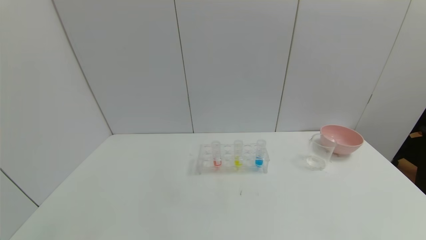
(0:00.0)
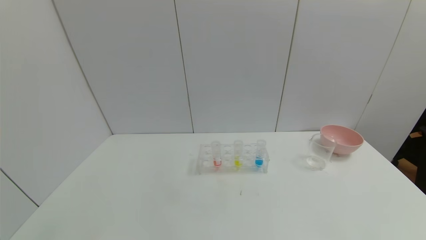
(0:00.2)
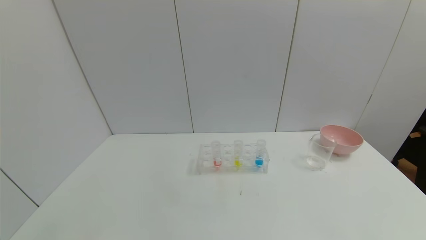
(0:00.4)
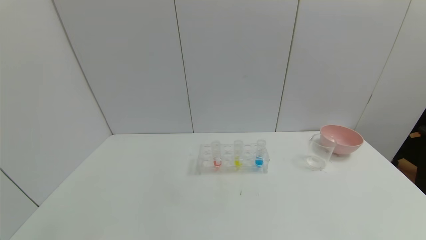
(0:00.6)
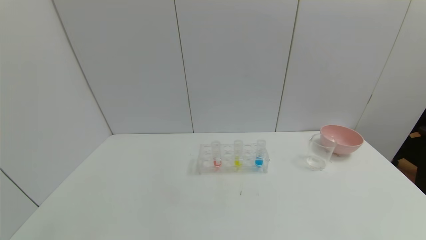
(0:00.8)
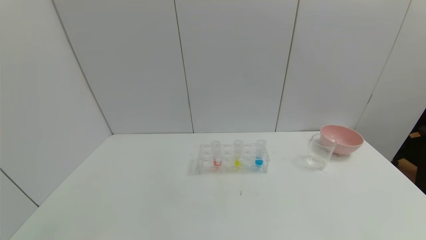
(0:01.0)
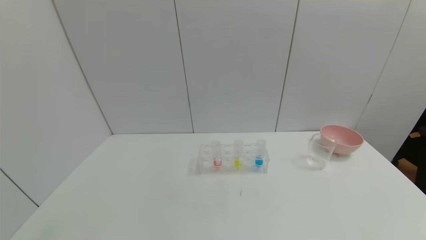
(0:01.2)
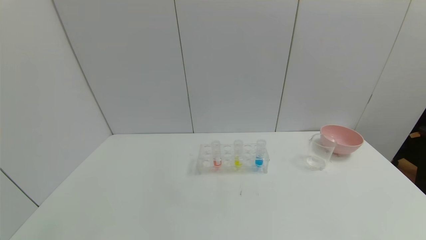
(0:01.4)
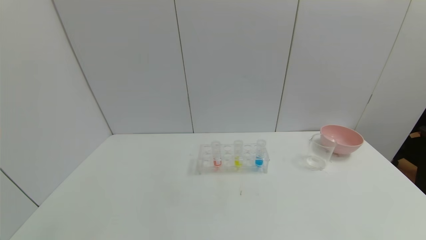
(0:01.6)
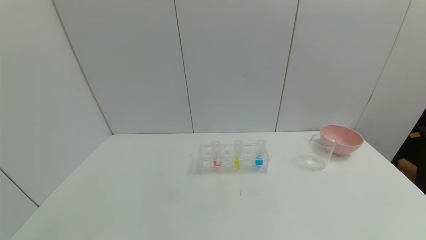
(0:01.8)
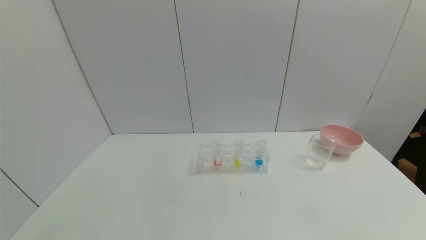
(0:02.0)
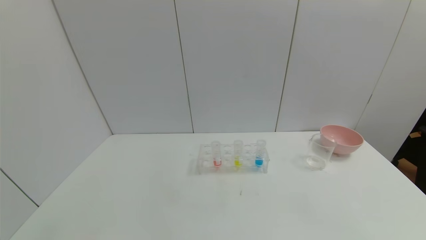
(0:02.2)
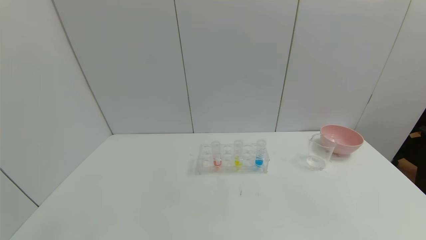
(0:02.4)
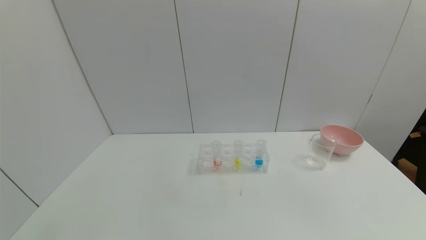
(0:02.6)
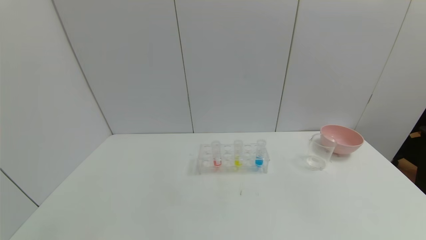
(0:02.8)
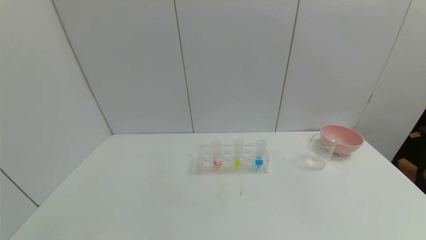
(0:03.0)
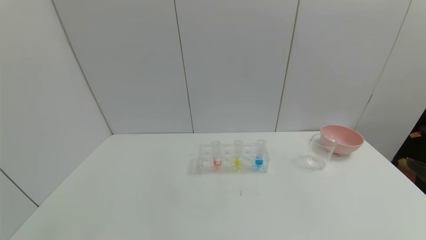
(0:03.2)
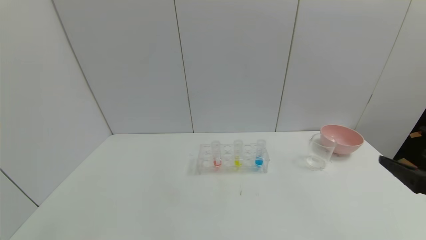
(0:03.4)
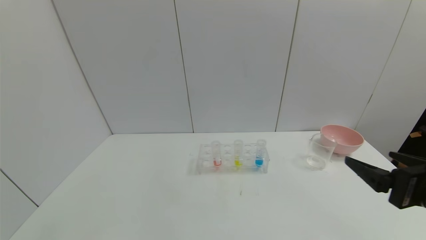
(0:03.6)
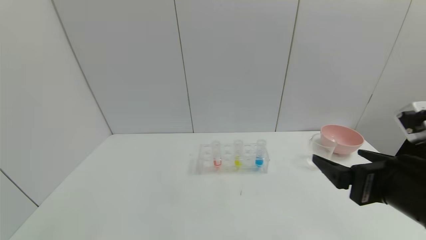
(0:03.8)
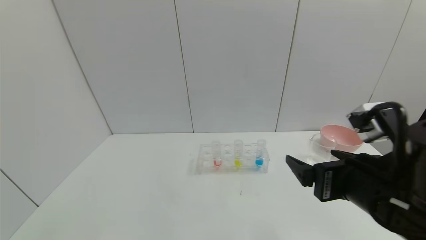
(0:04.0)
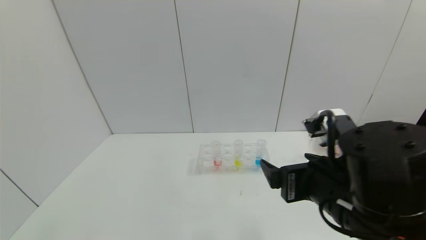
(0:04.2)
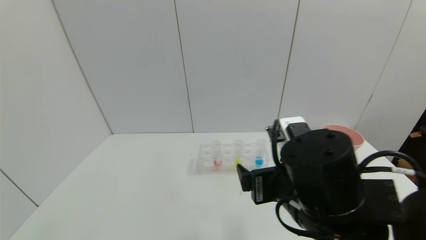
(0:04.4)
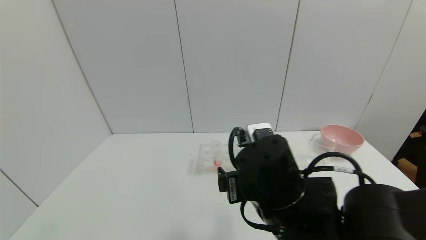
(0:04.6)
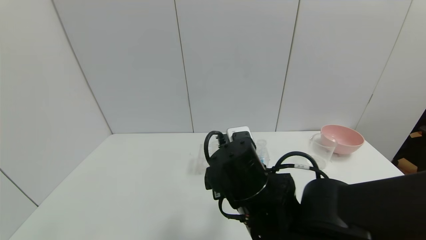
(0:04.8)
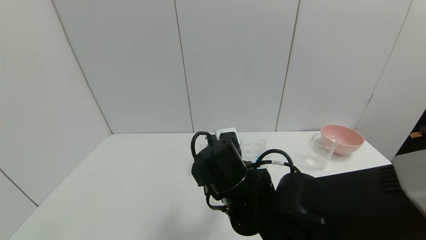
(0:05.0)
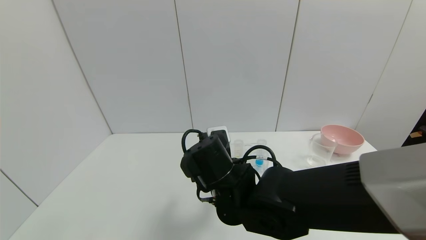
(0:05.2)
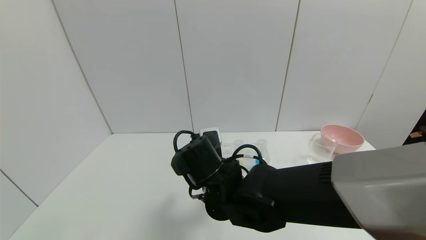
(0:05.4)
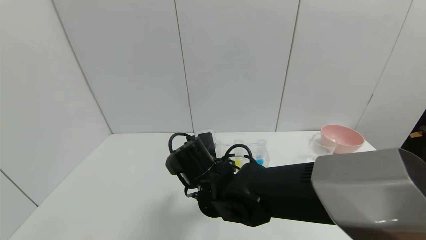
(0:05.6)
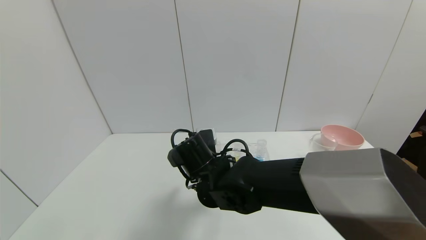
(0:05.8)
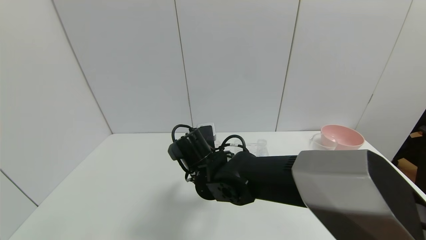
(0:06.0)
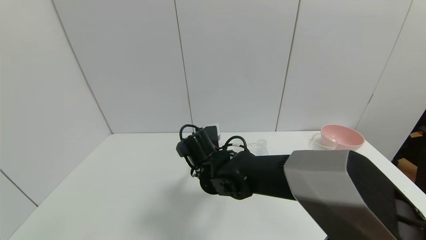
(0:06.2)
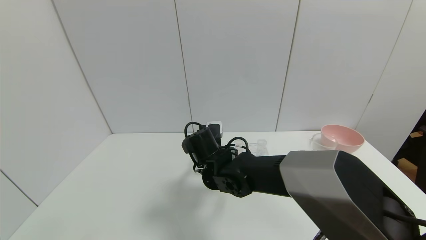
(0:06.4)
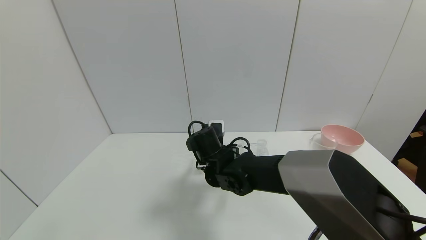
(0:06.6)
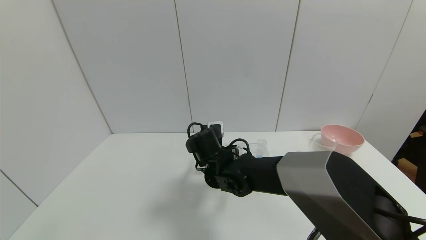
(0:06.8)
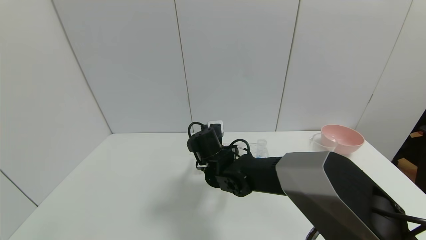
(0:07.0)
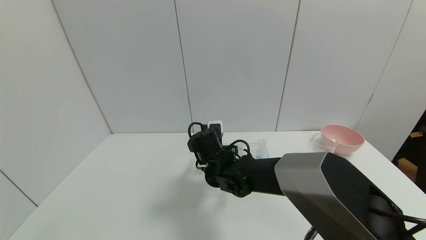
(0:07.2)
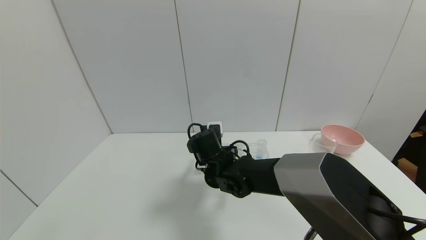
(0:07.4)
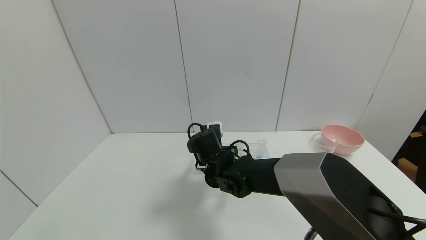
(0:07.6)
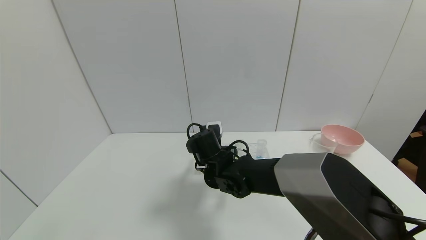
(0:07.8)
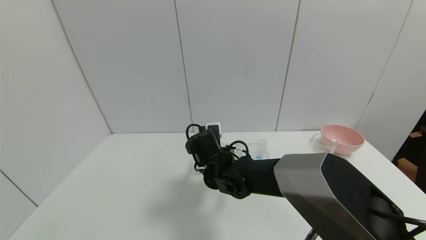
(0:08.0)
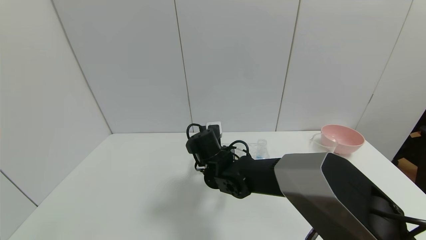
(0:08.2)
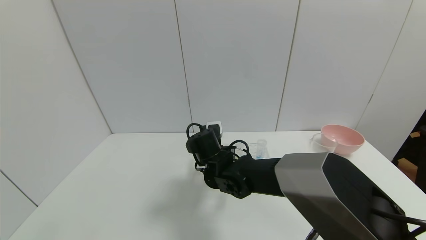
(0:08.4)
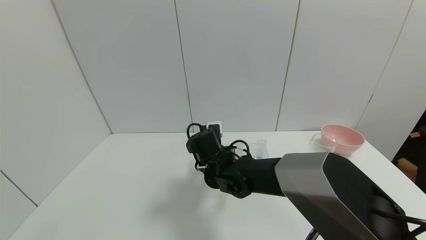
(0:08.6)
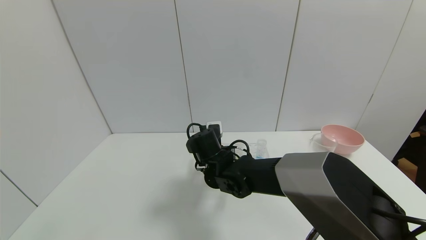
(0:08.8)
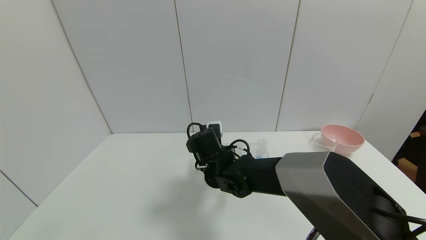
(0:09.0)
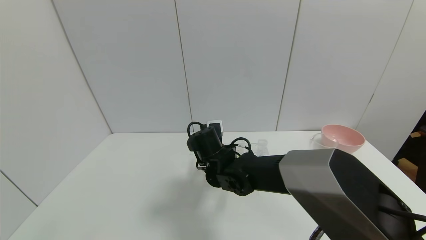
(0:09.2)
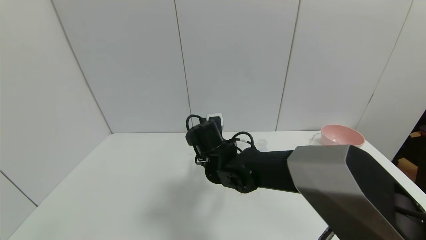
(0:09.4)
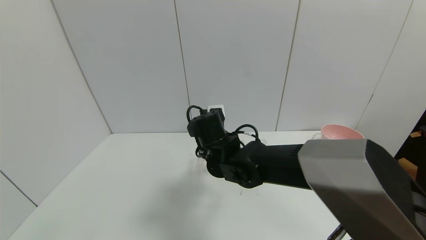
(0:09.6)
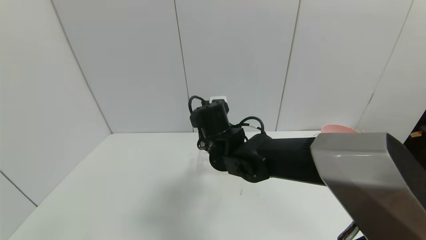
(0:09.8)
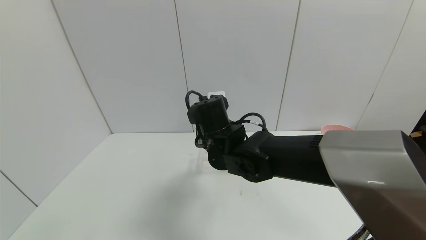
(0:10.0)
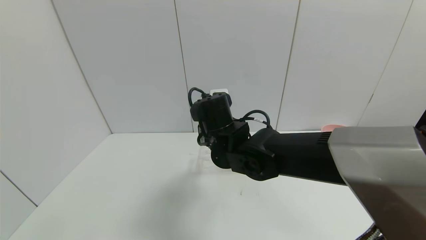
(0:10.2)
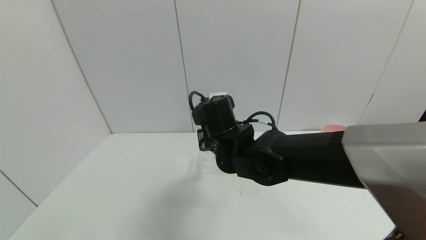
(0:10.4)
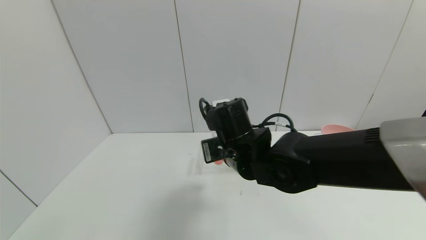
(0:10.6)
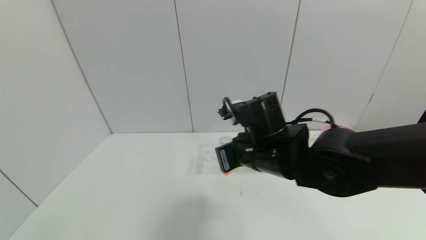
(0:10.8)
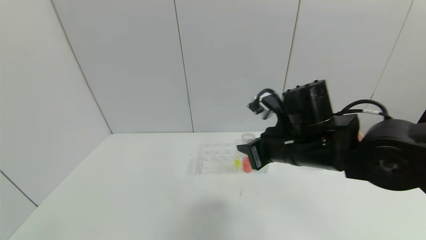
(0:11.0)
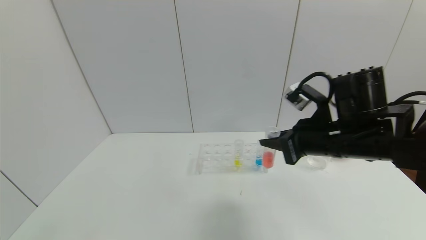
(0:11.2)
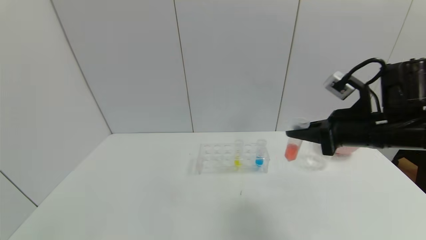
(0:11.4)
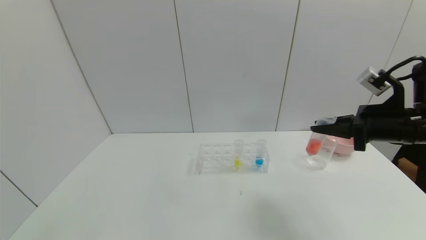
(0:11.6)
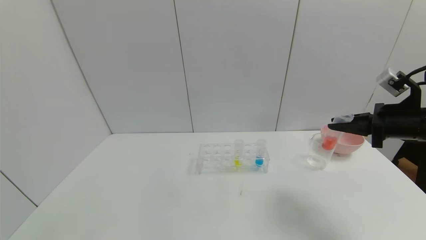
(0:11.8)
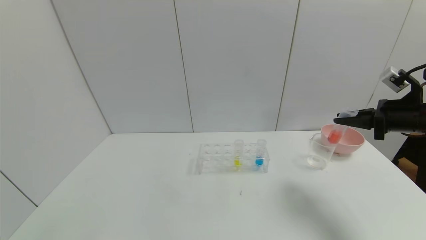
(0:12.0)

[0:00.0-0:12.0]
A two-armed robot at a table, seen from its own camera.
Task of the whole recording: pick up the test tube with yellow pigment and the test tube with red pigment by grippers and pour them into the beaker.
Step, 0:00.0 to 0:08.4: Grasp the red reagent with the right gripper.
0:00.0 to 0:01.6: The two grippers keep their place.
0:03.0 to 0:04.4: The right gripper travels to the left and forward by some 25 cm.
0:04.4 to 0:06.0: The right gripper moves to the left, forward and downward, roughly 20 cm.
0:06.0 to 0:07.6: The right gripper heads forward, covering approximately 5 cm.
0:07.6 to 0:09.0: The right gripper closes its fingers.
0:09.0 to 0:10.4: The right gripper travels upward by about 10 cm.
0:10.4 to 0:12.0: The right gripper moves to the right, approximately 40 cm.

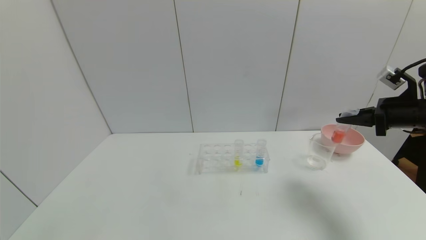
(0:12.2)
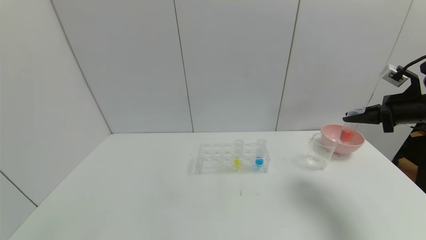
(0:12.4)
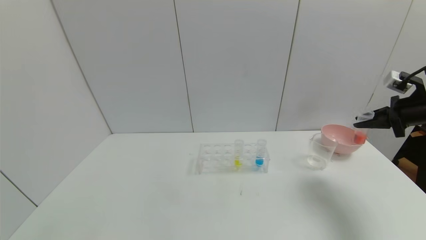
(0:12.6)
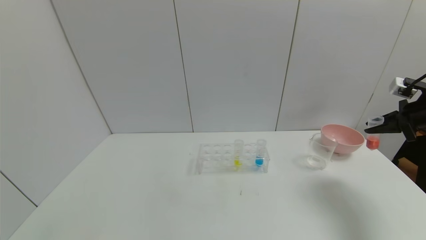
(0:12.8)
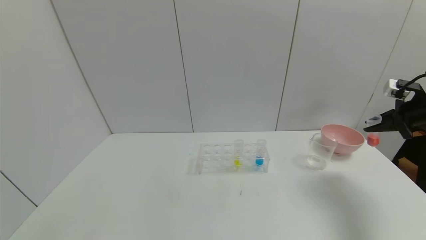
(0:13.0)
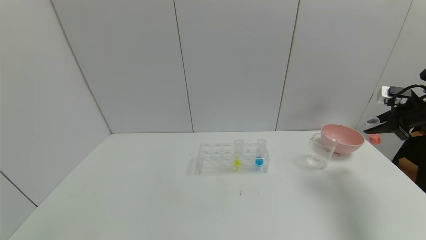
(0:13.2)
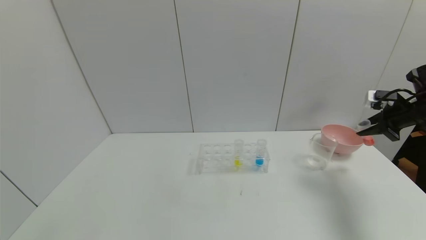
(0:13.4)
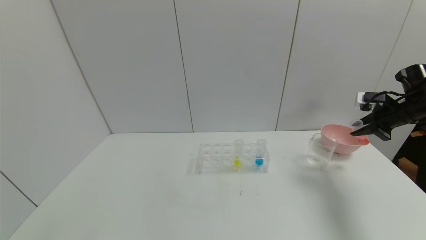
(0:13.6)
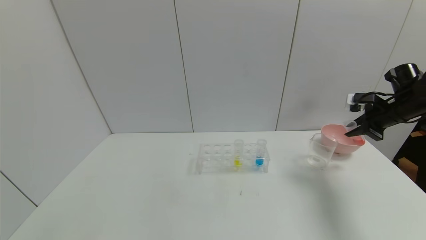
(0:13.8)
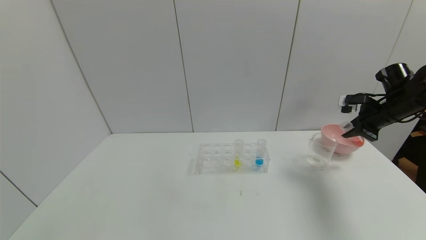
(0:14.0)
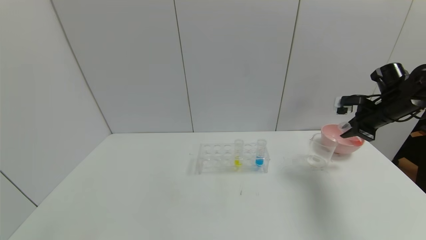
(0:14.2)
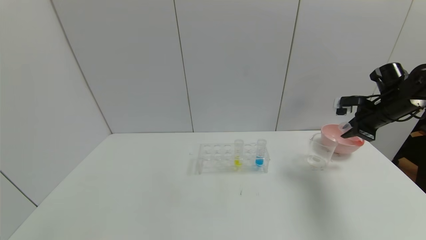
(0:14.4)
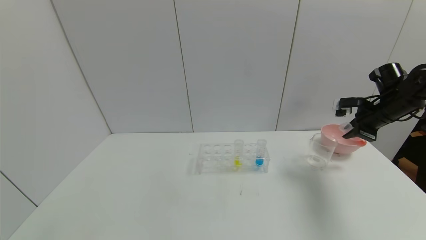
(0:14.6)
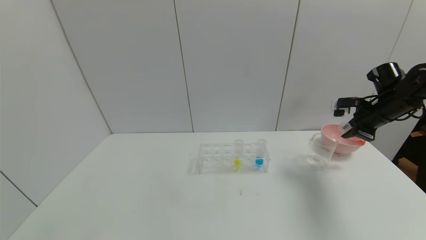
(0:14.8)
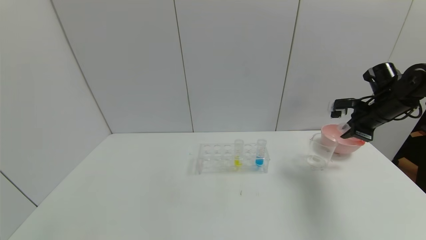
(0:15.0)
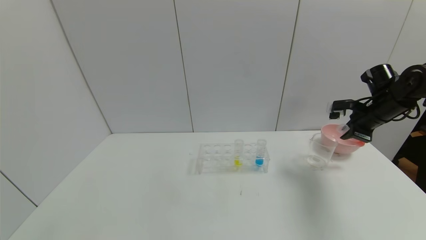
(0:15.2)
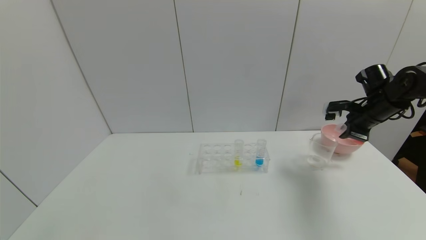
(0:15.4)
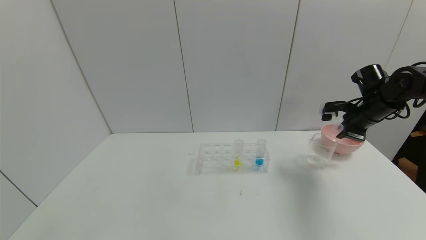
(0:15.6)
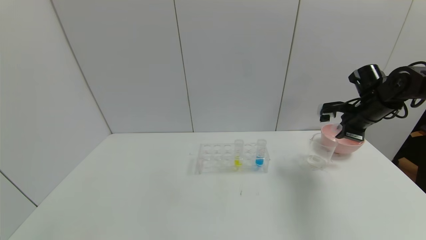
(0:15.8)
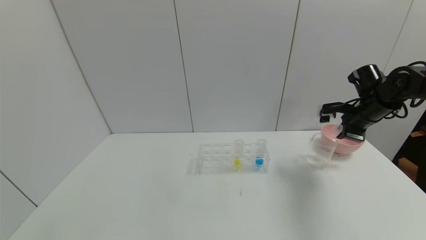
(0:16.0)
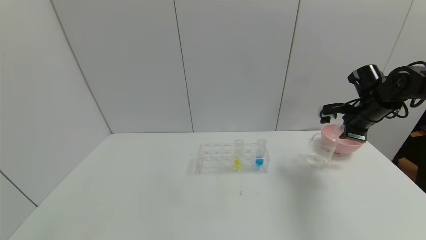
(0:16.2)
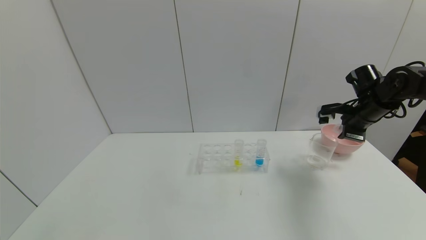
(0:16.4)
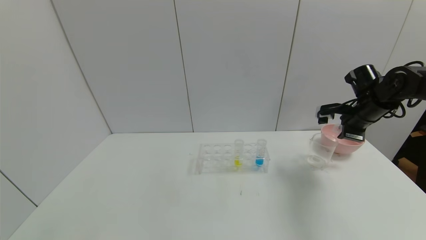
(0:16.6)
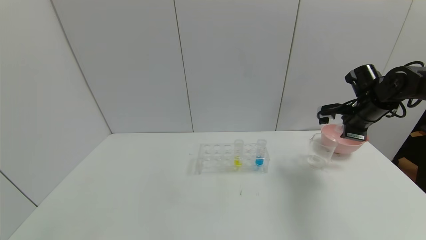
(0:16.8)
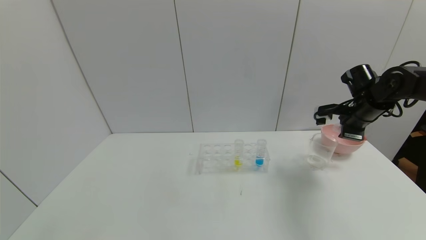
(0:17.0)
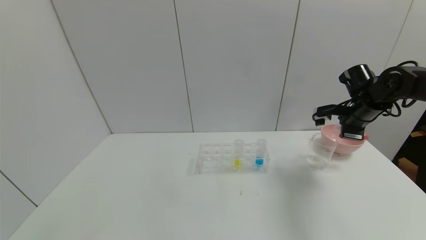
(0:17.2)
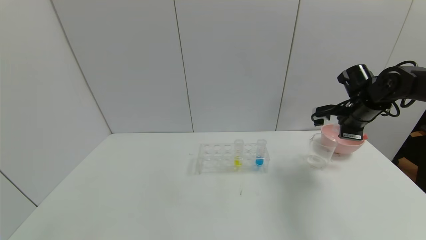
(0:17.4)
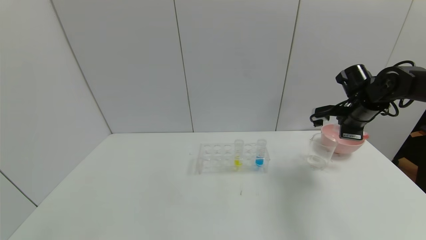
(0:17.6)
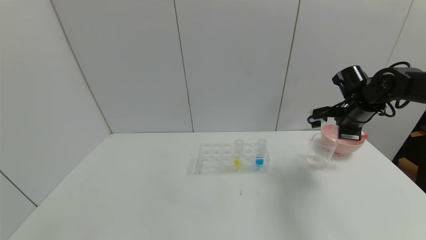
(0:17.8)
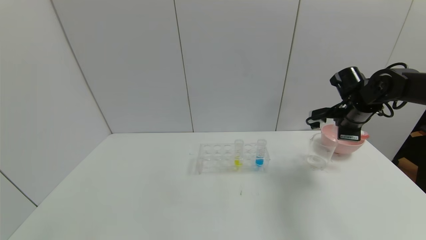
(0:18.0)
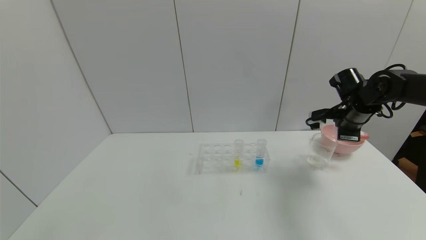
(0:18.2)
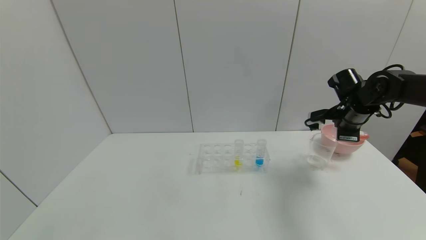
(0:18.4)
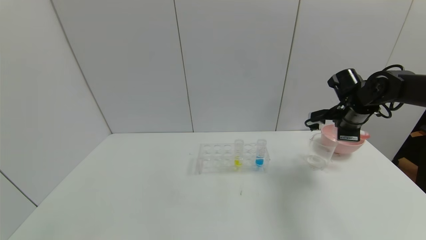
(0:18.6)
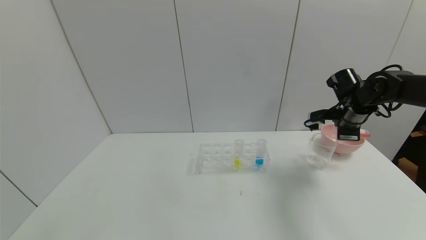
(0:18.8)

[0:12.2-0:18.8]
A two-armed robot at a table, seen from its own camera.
Task of the whole recording: pick up the test tube with yellow pigment and the test tube with red pigment by grippers and pour them into the beaker.
0:12.2 to 0:13.8: The right gripper travels forward by some 5 cm, and reaches approximately 10 cm to the right, then returns.
0:13.8 to 0:15.4: The right gripper heads to the left, covering about 5 cm.
0:15.4 to 0:17.2: The grippers make only small movements.
0:17.2 to 0:18.8: There are only small adjustments of the grippers.
